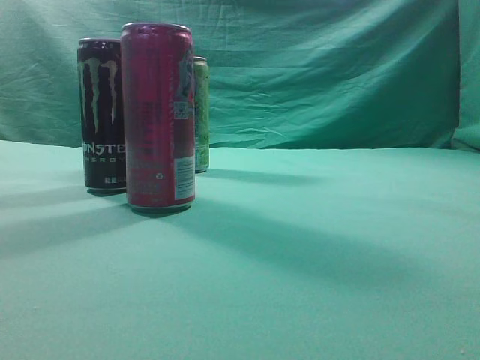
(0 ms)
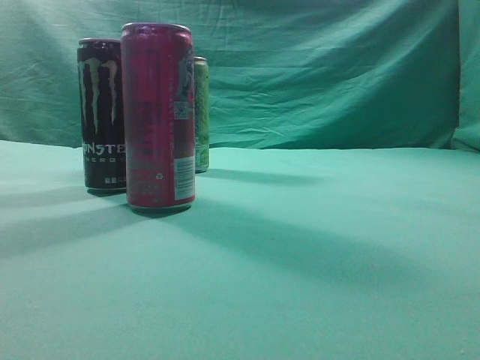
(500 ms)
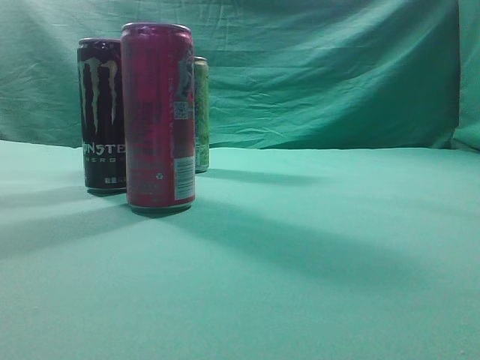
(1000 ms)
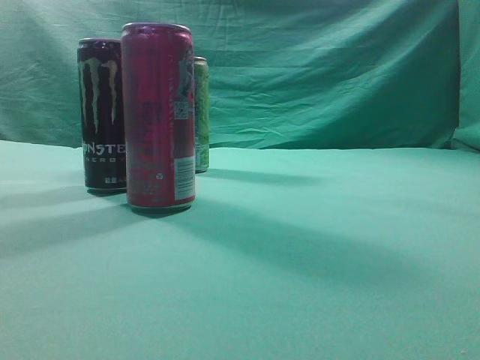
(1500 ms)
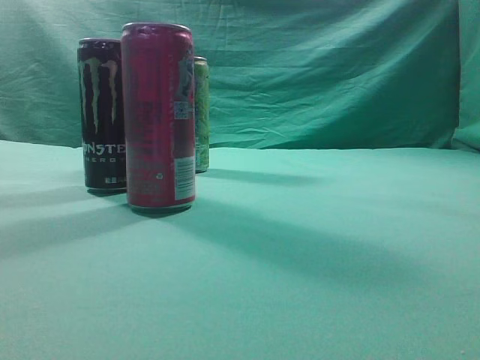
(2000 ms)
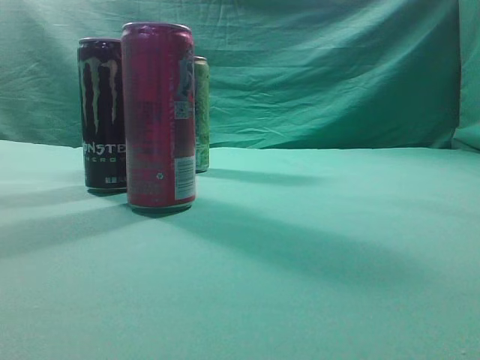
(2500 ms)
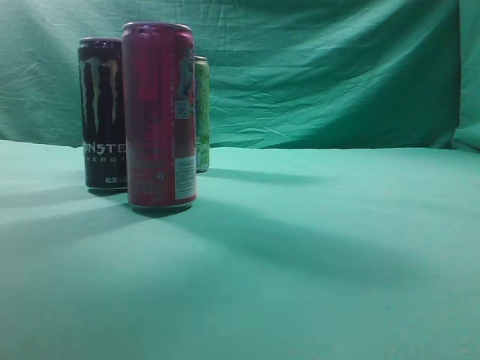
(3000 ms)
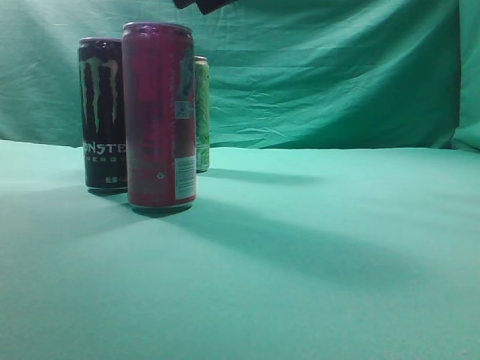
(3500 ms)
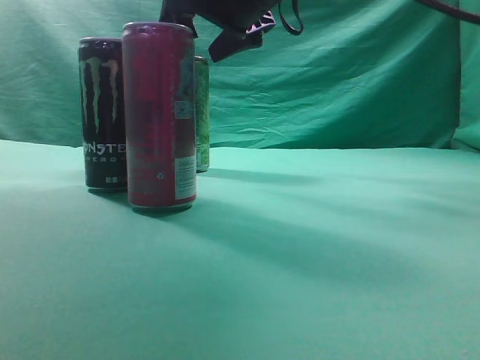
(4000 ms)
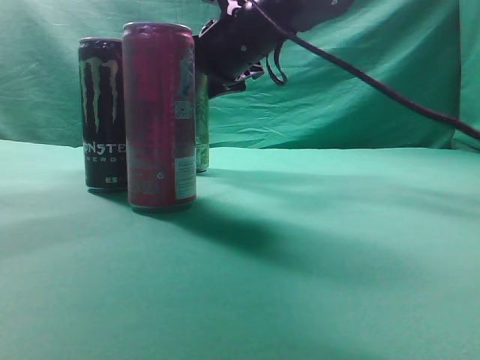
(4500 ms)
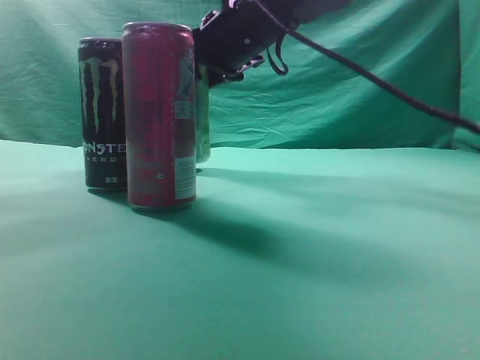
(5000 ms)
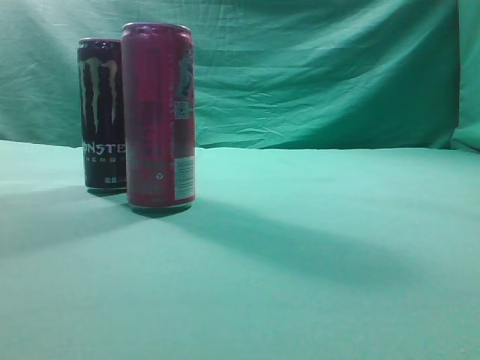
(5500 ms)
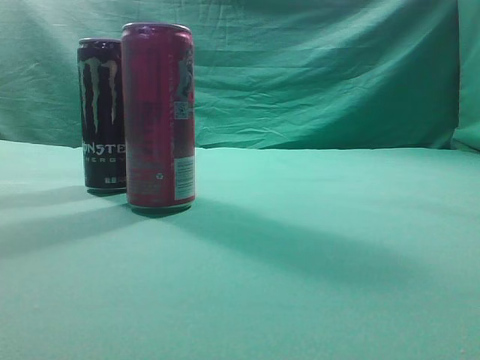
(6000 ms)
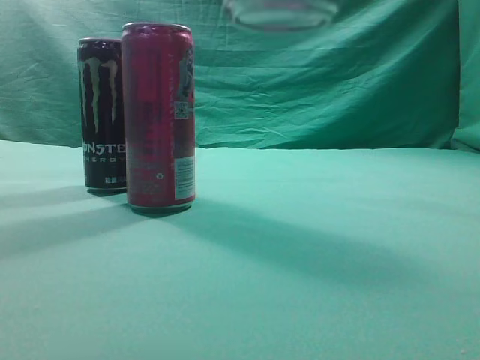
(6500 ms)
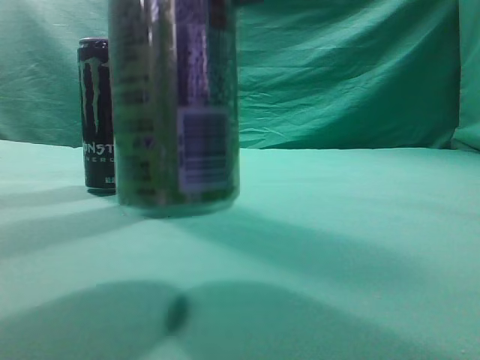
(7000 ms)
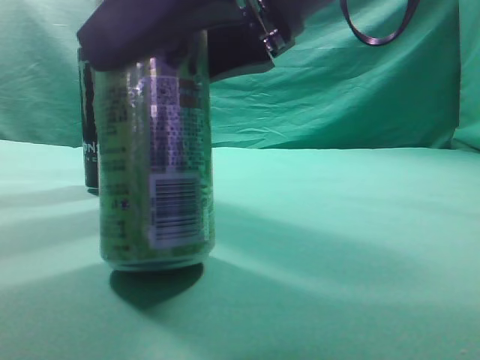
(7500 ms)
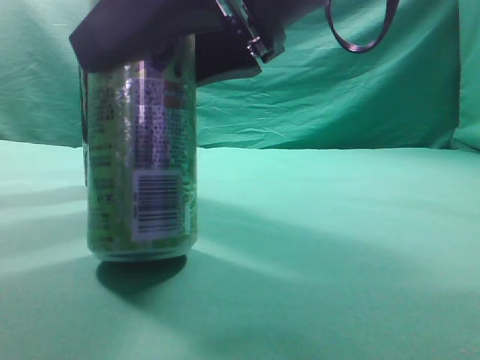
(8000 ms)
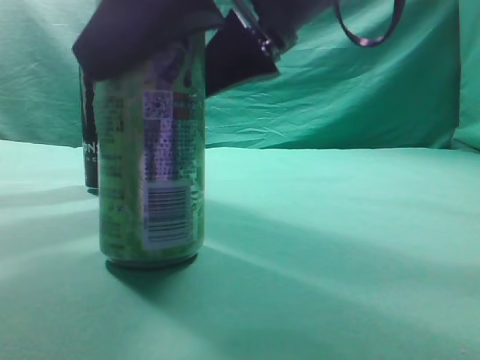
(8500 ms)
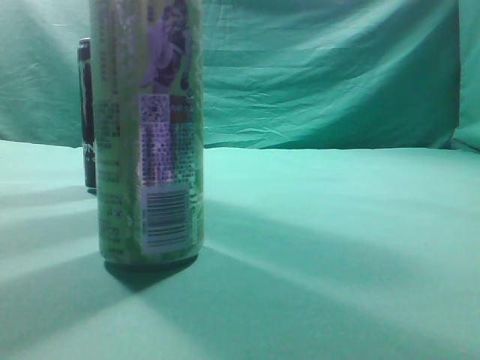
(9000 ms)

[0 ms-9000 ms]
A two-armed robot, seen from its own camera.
Task of the whole recording: move one drink among three beverages.
Step, 0 ms to 5000 ms: Grasp the beverage bottle placed at the back of the desk.
Step, 5500 ms to 8500 ms: Place the beverage bottle to the front of the table.
2000 ms to 4500 ms: The right gripper is displaced forward and to the left by about 50 cm, and opens.
4500 ms to 7000 ms: The right gripper moves backward, about 25 cm.
7000 ms to 9000 ms: The right gripper is displaced upward by approximately 10 cm.
